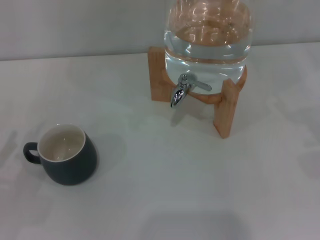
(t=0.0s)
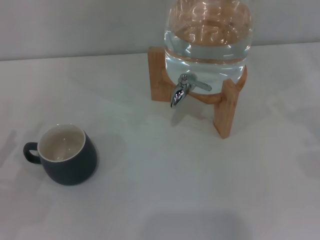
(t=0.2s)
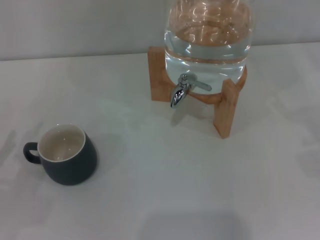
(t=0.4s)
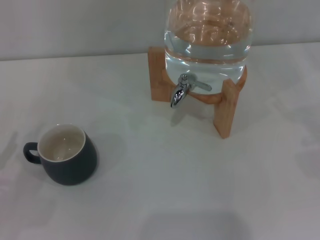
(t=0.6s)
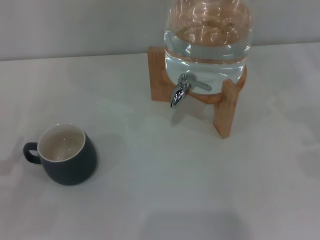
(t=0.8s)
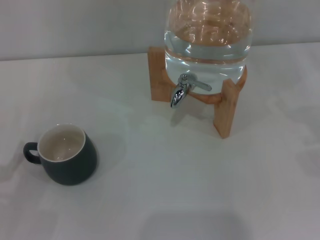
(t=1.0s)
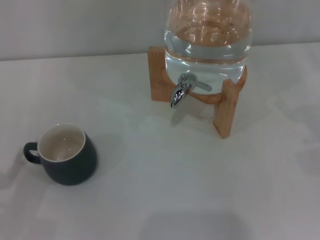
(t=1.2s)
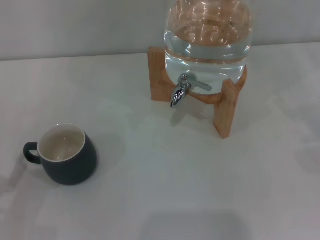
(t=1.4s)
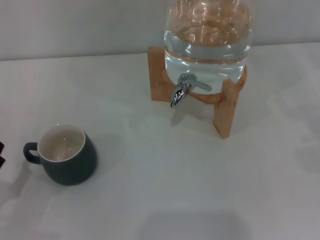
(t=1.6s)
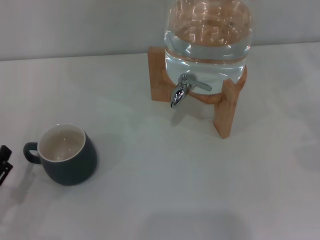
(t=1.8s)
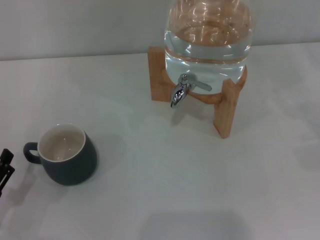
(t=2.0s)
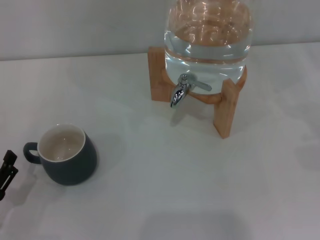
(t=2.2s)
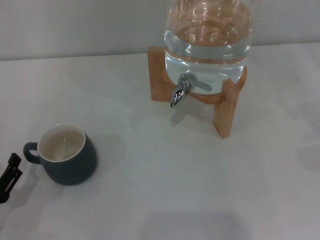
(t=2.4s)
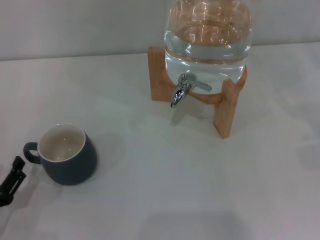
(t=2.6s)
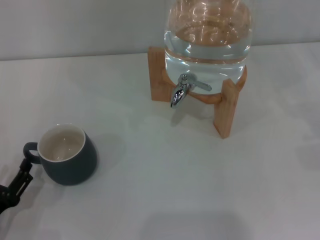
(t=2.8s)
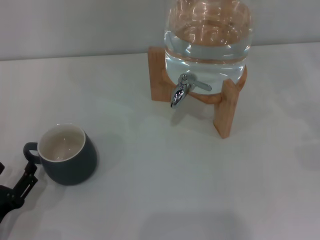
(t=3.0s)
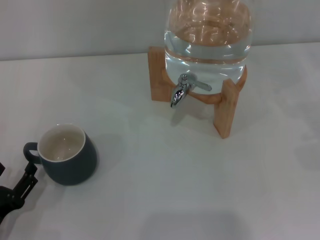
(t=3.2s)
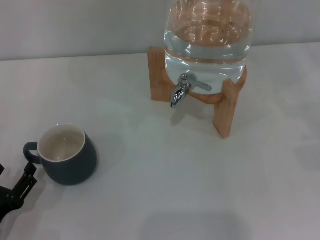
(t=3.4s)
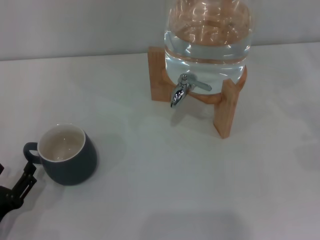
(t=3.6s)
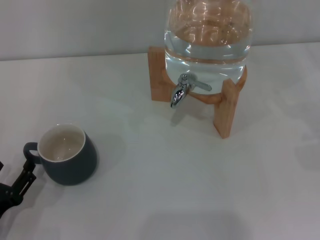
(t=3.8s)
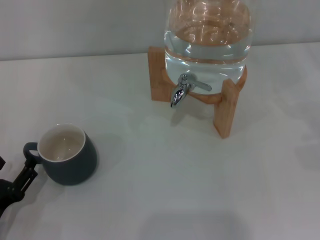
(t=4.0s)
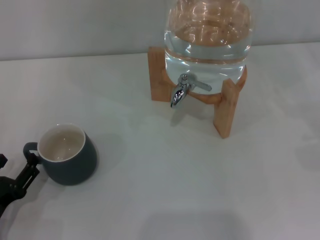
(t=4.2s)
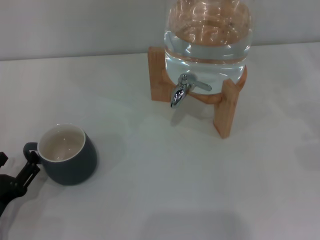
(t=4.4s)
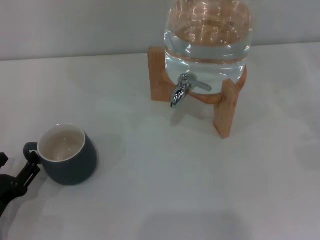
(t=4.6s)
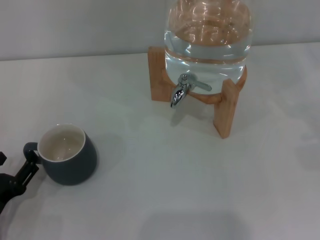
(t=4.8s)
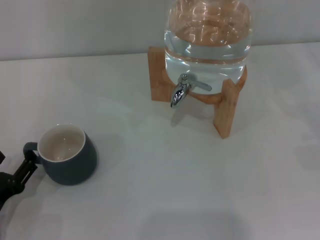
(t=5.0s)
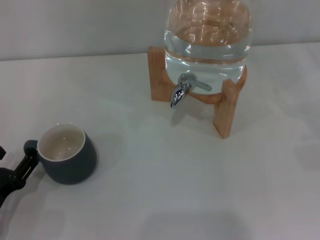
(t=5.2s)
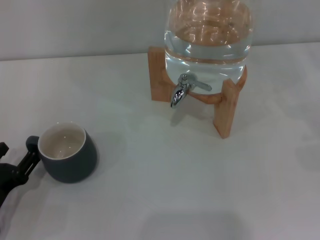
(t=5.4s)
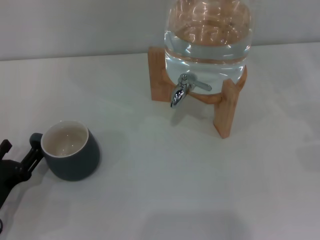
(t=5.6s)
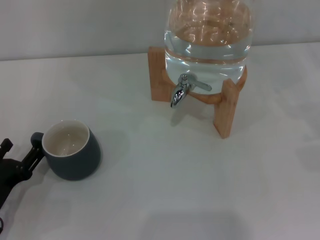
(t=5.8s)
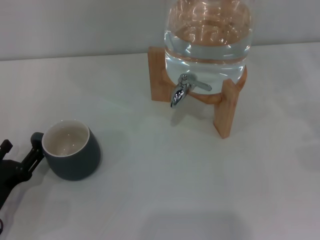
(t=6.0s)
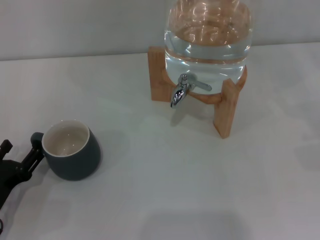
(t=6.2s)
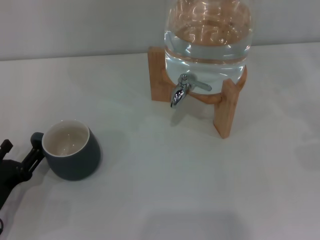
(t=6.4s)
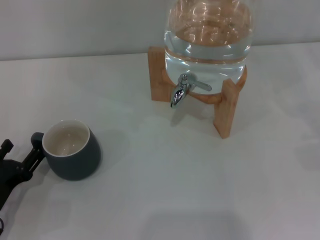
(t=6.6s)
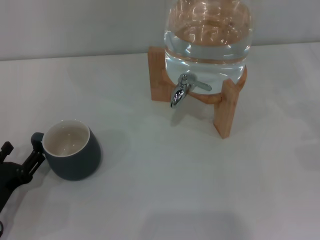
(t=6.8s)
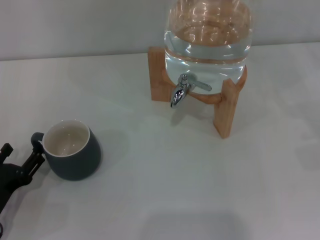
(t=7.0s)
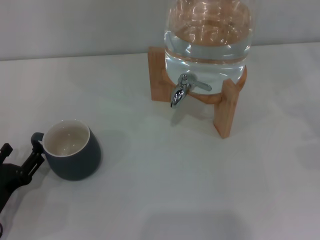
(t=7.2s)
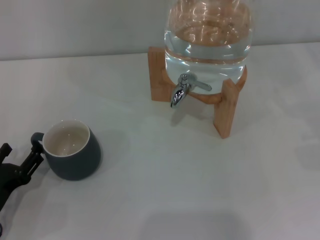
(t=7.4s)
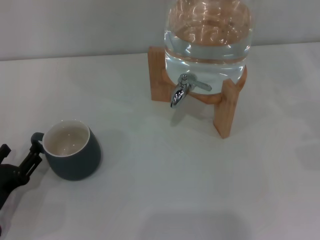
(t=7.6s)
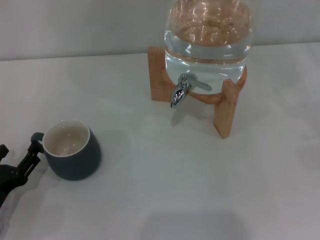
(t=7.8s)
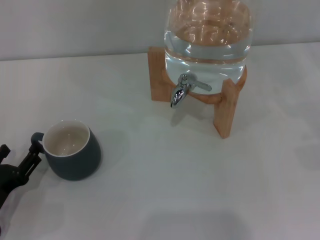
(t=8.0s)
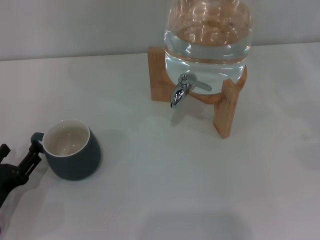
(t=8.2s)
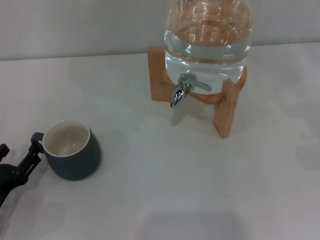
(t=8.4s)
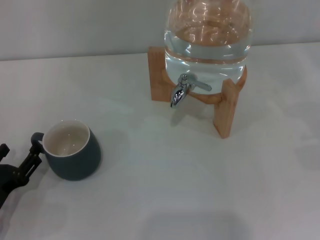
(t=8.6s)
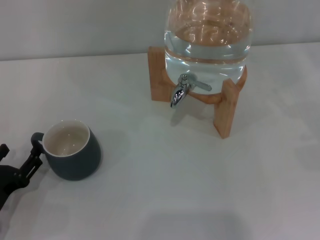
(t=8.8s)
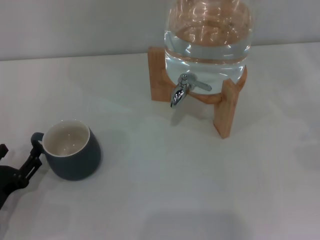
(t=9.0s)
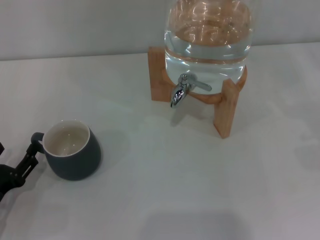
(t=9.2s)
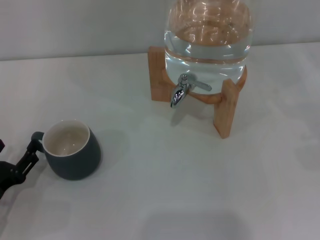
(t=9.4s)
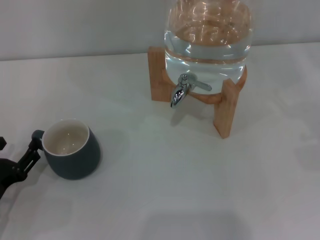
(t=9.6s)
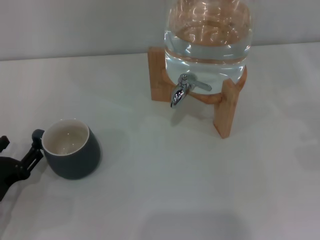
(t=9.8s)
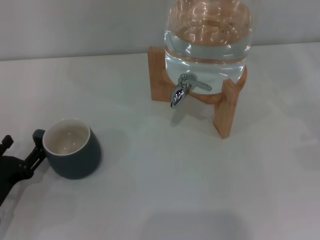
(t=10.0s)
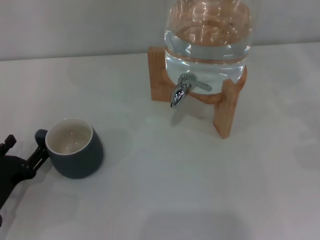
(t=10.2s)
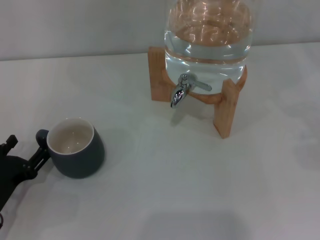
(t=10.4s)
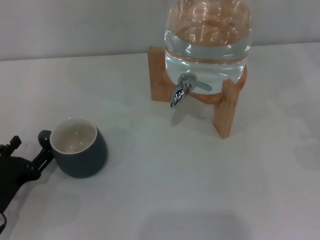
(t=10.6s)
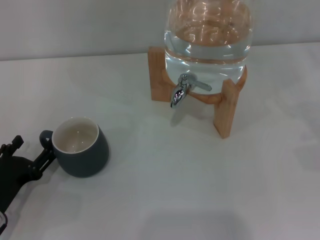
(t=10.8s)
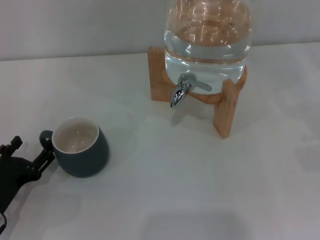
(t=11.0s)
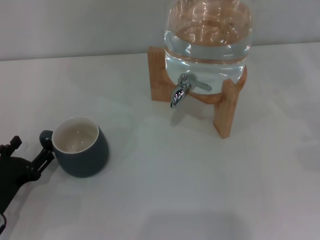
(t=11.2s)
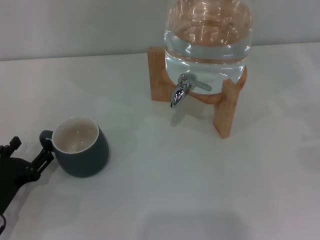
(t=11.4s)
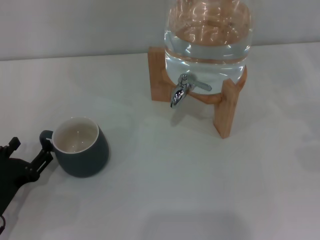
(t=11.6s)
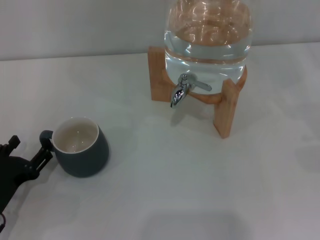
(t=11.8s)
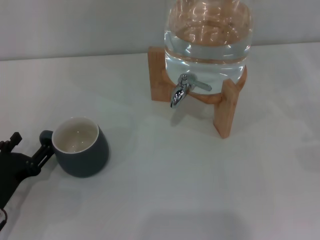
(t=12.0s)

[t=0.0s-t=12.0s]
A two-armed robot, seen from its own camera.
Task of the whole recording: the left gripper pick up the black cup and place it horizontally under the faucet, the right gripper turn on the faucet to fill the cup, and then turn off the faucet.
t=1.6s to t=6.0s: The grippers stay close to where they were, moving slightly.
t=6.0s to t=7.6s: Both grippers stay about where they are.
t=9.0s to t=10.4s: The grippers move only a little.
t=10.4s to t=12.0s: Both grippers stay put.

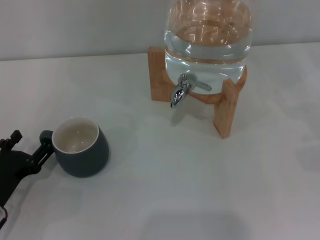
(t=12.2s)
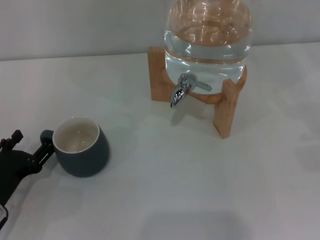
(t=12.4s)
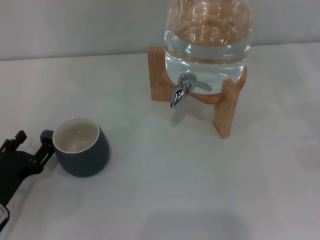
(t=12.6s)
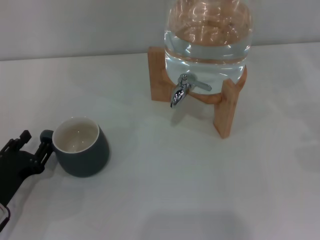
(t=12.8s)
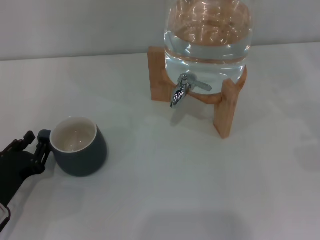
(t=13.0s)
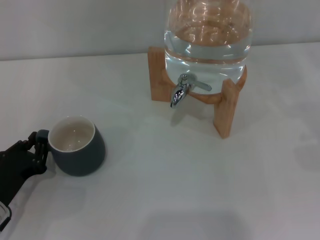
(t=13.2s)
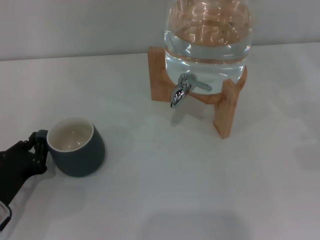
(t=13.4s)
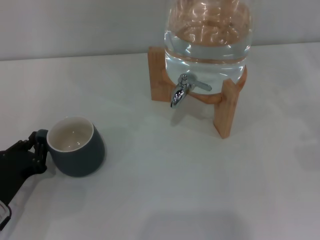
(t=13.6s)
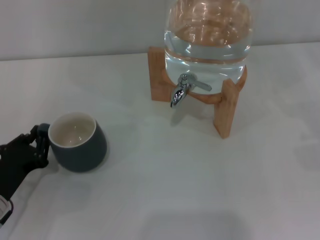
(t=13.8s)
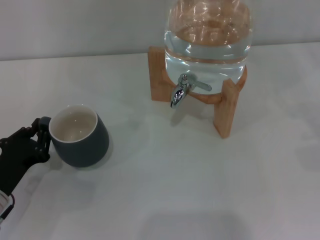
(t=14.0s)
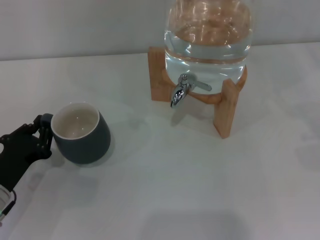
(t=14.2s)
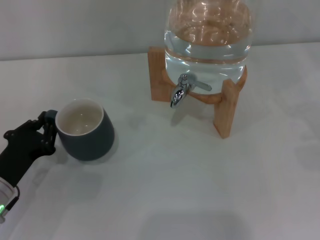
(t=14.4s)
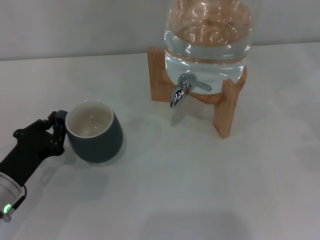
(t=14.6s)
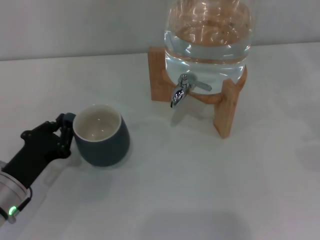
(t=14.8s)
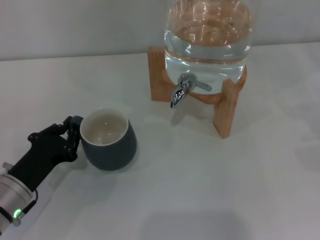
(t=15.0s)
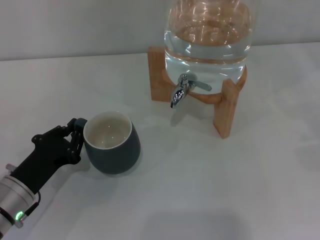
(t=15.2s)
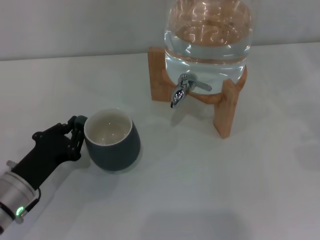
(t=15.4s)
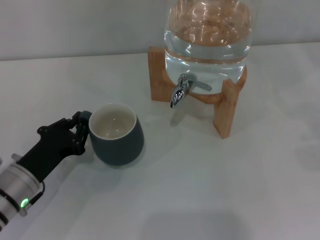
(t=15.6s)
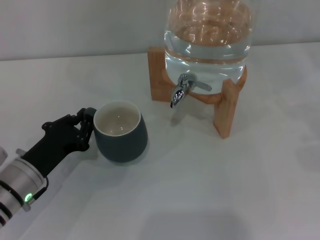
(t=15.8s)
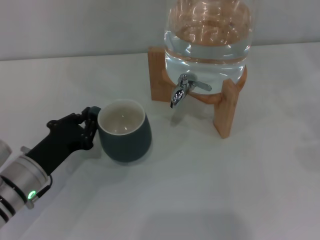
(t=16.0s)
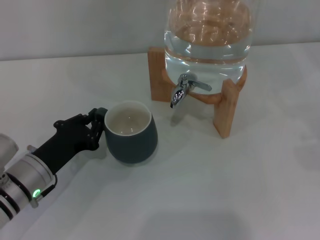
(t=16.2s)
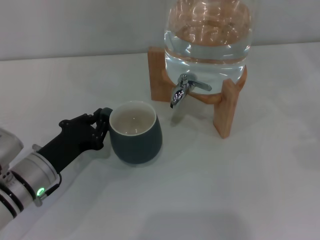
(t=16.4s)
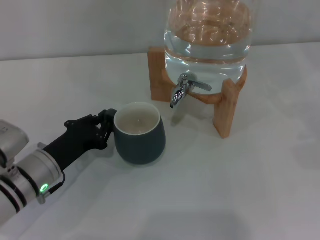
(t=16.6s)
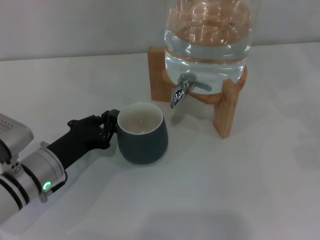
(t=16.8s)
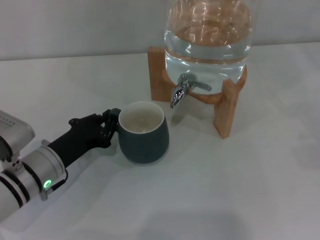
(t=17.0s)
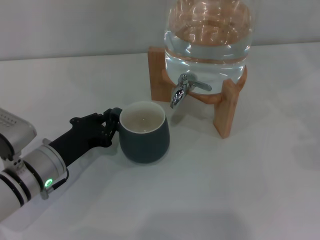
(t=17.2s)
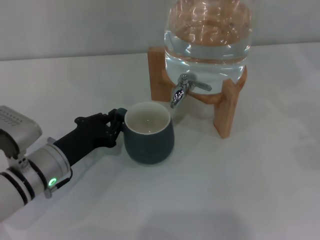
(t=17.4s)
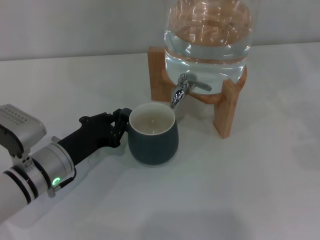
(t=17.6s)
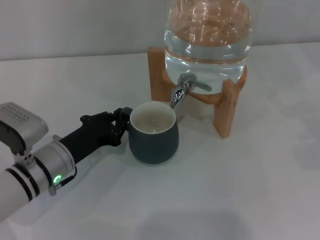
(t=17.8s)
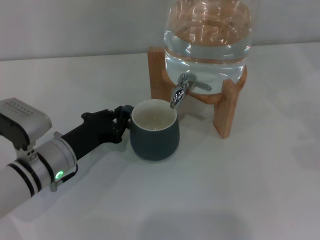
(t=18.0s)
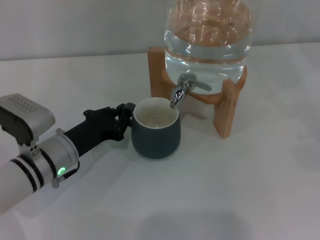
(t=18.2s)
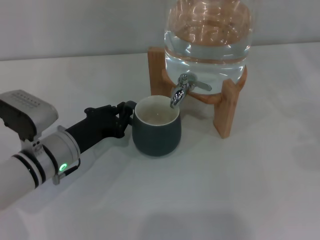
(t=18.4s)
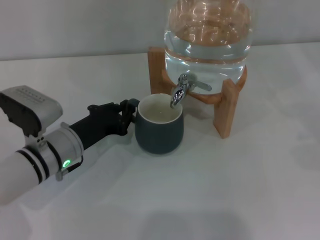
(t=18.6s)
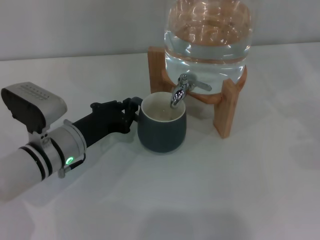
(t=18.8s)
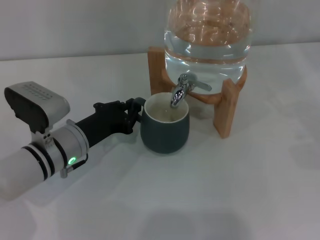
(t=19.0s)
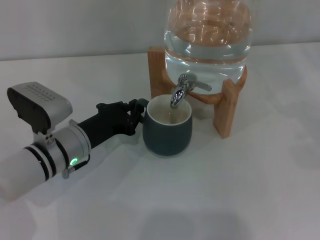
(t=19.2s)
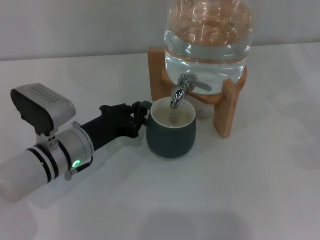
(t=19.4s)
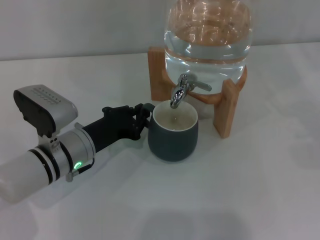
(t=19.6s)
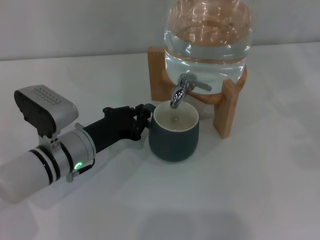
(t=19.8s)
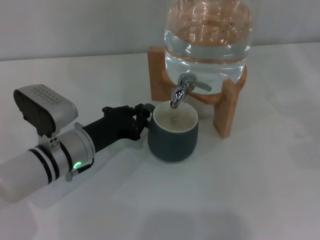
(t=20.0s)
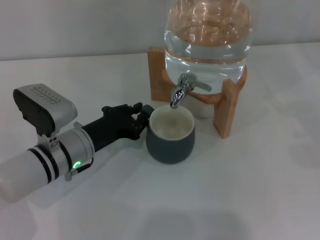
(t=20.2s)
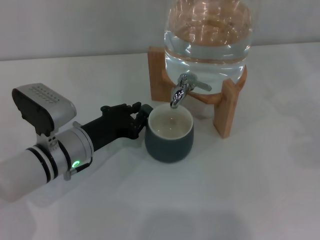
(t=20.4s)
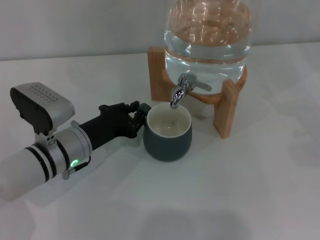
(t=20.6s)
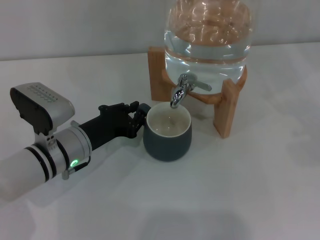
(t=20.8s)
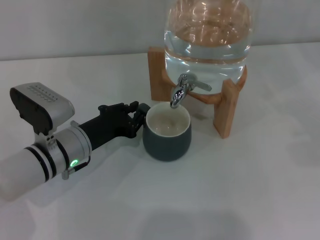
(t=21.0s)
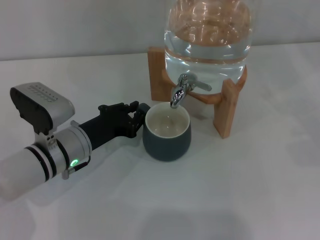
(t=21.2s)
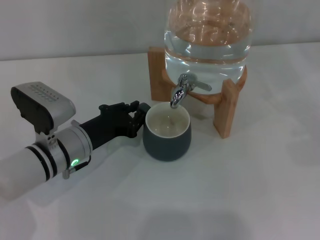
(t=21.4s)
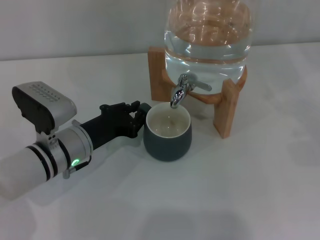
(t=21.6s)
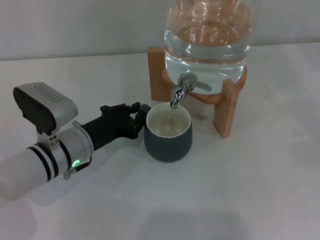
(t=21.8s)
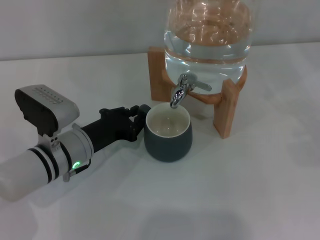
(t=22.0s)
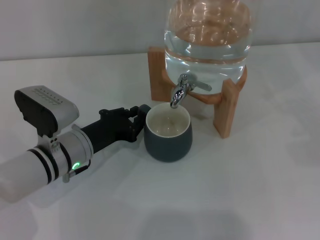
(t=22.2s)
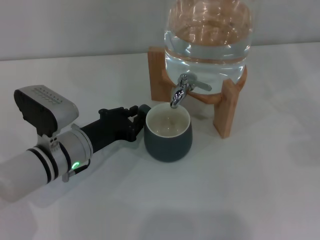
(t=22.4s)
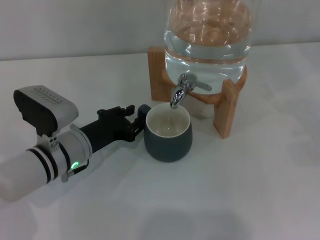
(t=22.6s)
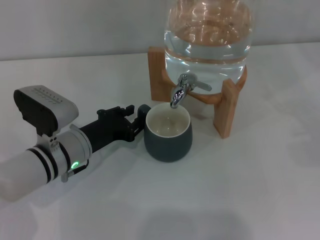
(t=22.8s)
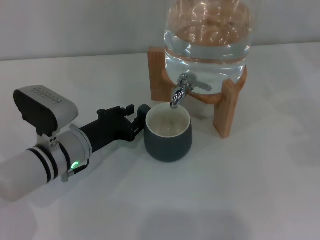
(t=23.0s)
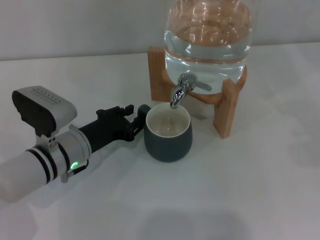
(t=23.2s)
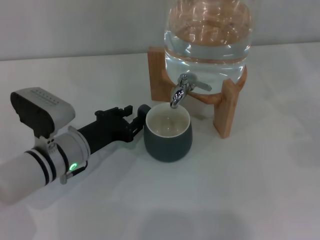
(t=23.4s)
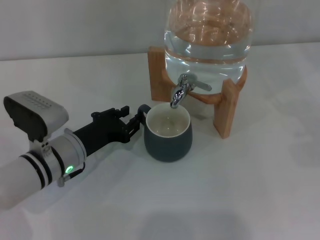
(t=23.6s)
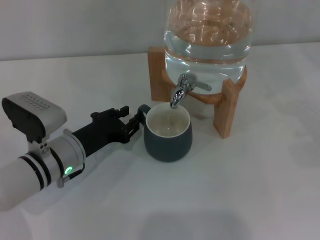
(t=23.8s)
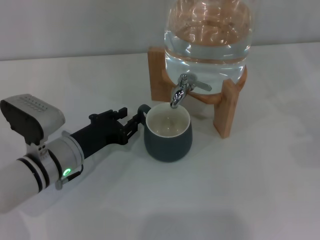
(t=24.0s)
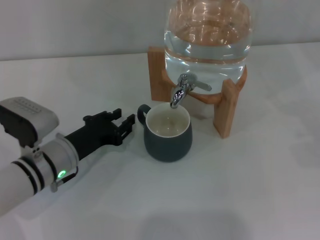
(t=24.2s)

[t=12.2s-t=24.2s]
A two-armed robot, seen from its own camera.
Task of the whole recording: the left gripper pick up the black cup and place it horizontally under the faucet, the right gripper turn on the faucet to fill the cup, and then turn off the faucet.
t=12.2s to t=13.8s: The left gripper closes its fingers.
t=13.8s to t=15.2s: There are only small adjustments of the grippers.
t=15.2s to t=16.6s: The left gripper changes place by approximately 5 cm.
t=16.6s to t=18.2s: There are only small adjustments of the grippers.
t=18.2s to t=19.8s: The grippers move only a little.
t=19.8s to t=22.6s: Both grippers stay put.
t=22.6s to t=24.2s: There are only small adjustments of the grippers.
